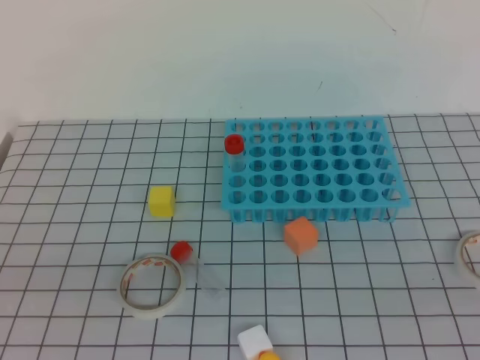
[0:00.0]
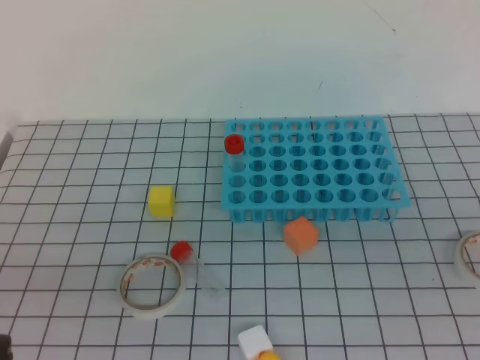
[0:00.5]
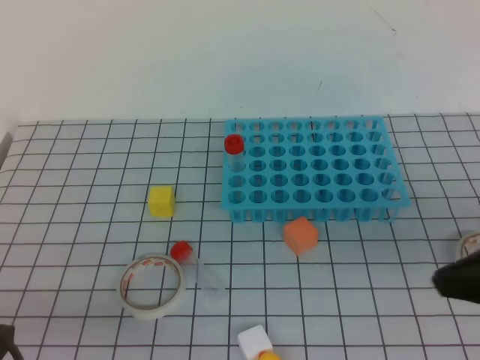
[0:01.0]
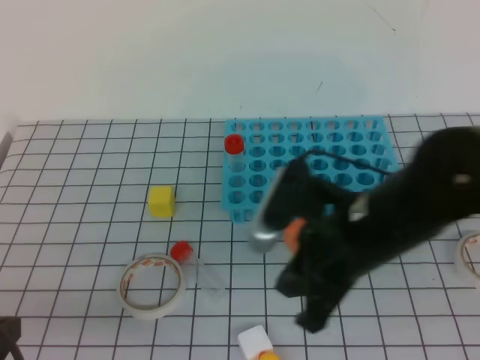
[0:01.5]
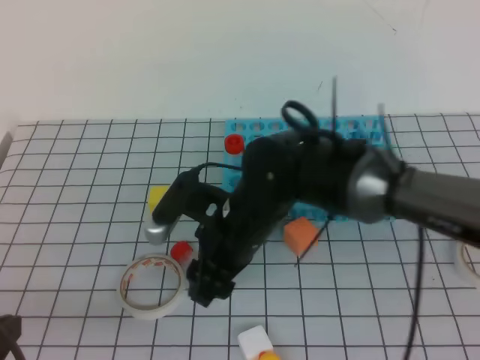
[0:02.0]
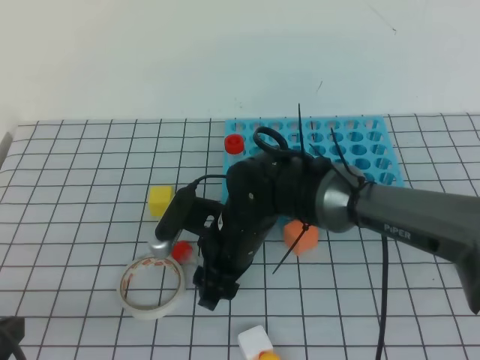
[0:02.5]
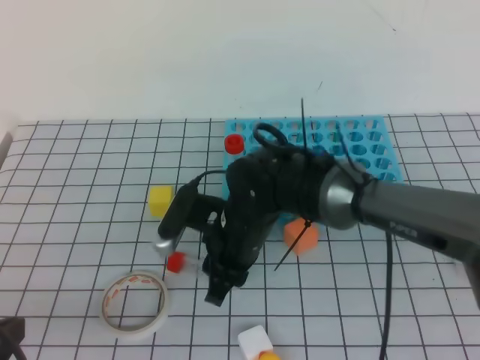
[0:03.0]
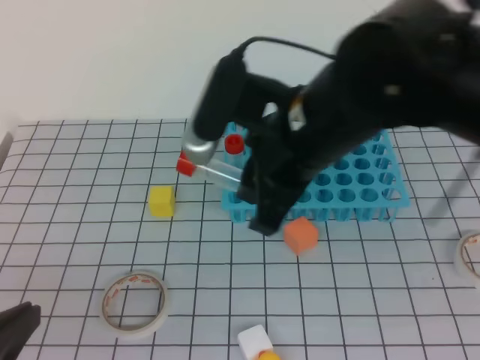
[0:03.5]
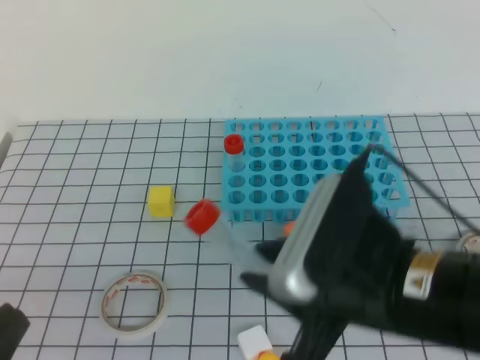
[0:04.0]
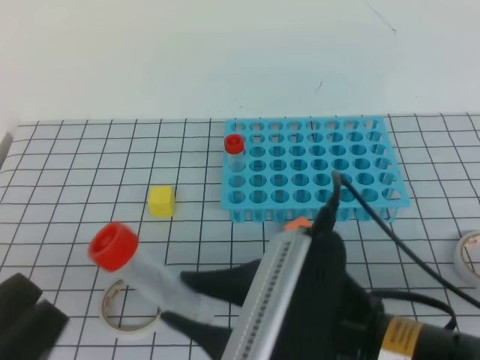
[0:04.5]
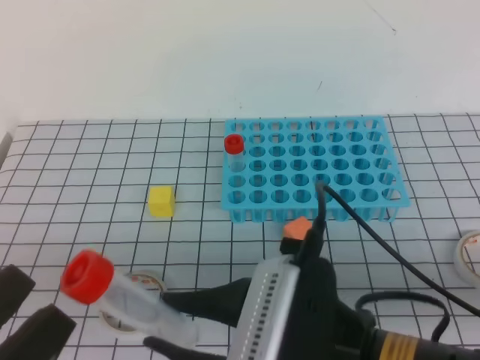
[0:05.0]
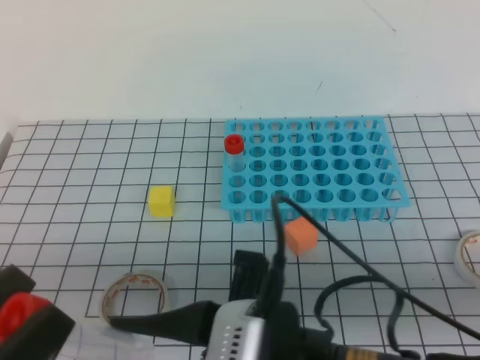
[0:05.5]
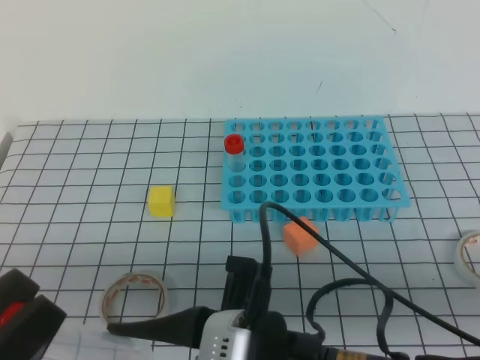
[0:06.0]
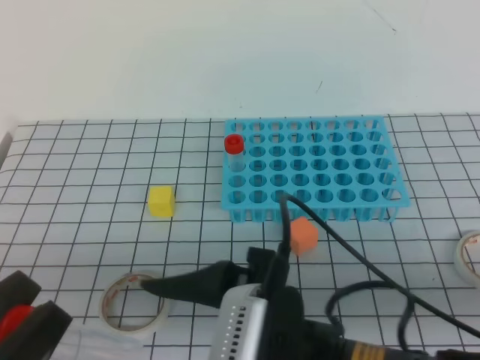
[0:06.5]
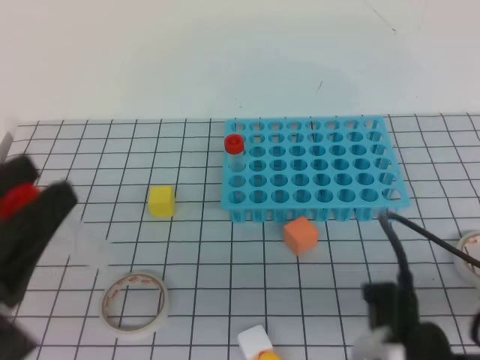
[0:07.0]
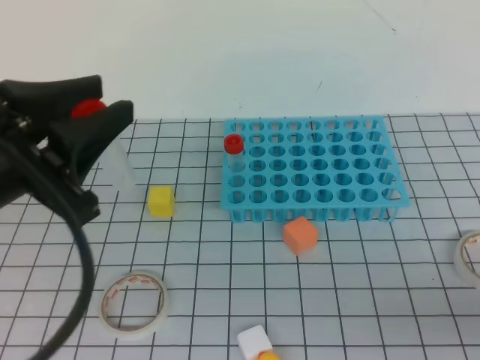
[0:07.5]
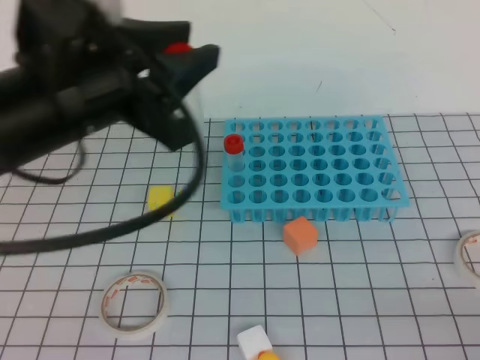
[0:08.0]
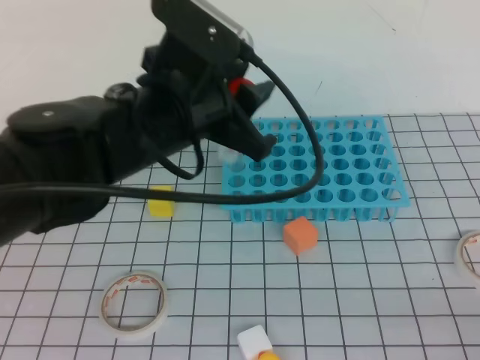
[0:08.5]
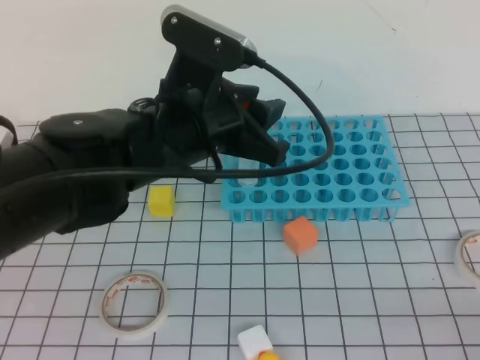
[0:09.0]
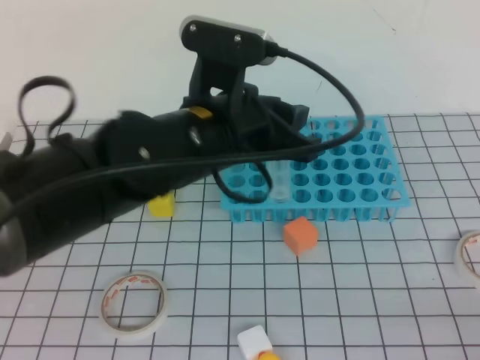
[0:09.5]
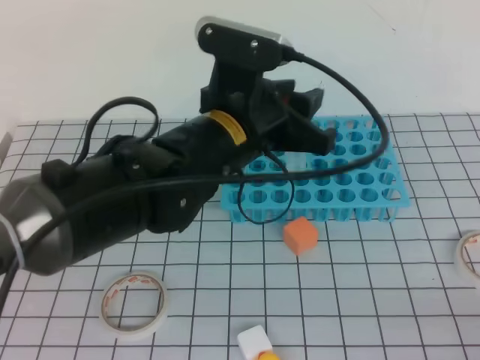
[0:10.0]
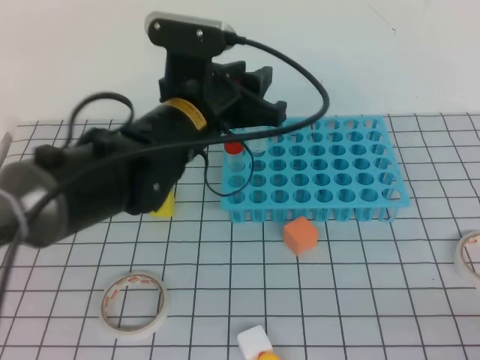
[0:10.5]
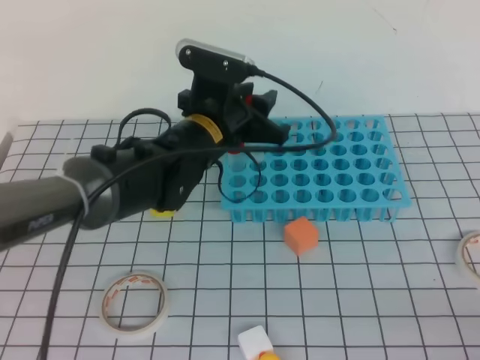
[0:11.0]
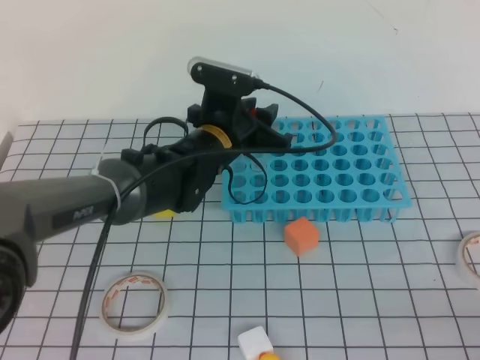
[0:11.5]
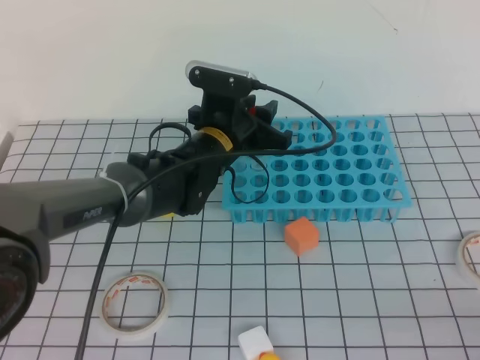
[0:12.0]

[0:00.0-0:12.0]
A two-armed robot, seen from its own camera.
0:00.0 to 0:02.0: The left gripper moves downward and forward, approximately 10 cm; the right gripper moves to the left and forward, approximately 40 cm, and opens its fingers.
0:02.0 to 0:04.0: The left gripper travels backward by roughly 5 cm; the right gripper moves backward, to the right and upward, about 20 cm.
0:04.0 to 0:06.0: The right gripper shifts roughly 10 cm backward and to the left. The left gripper opens up.
0:06.0 to 0:08.0: The right gripper goes roughly 25 cm to the right, and closes, while the left gripper goes about 20 cm forward.
0:08.0 to 0:10.0: The left gripper moves to the right, downward and forward, about 15 cm.
0:10.0 to 0:12.0: The left gripper shifts some 15 cm forward and downward.

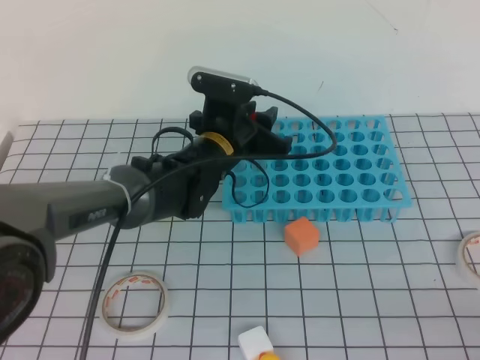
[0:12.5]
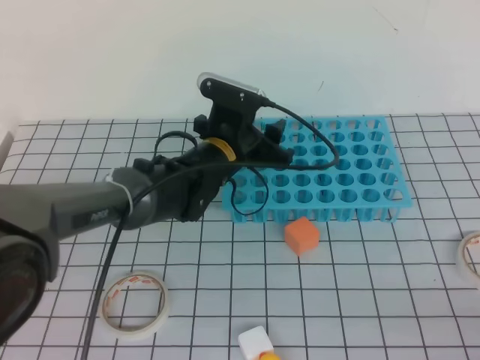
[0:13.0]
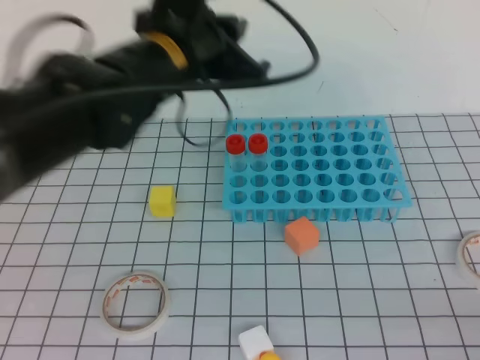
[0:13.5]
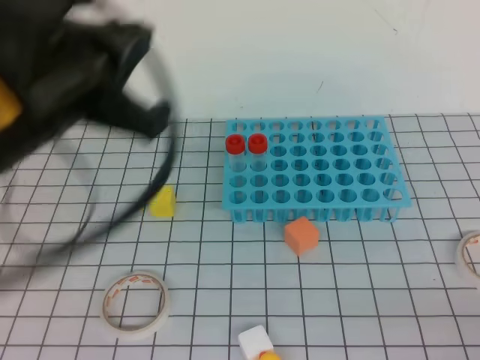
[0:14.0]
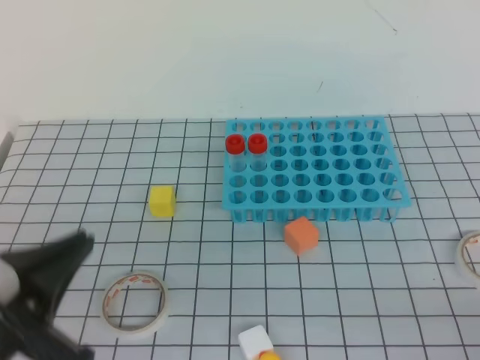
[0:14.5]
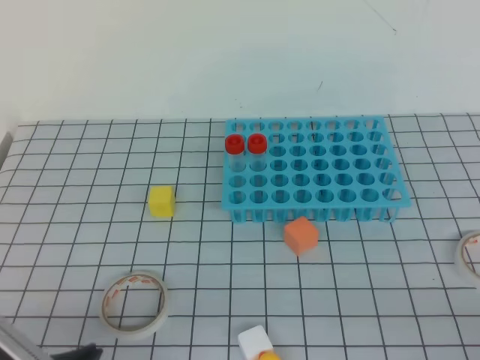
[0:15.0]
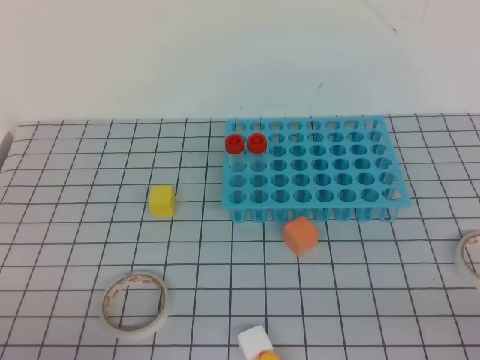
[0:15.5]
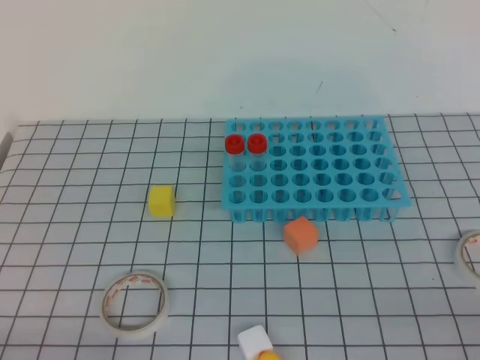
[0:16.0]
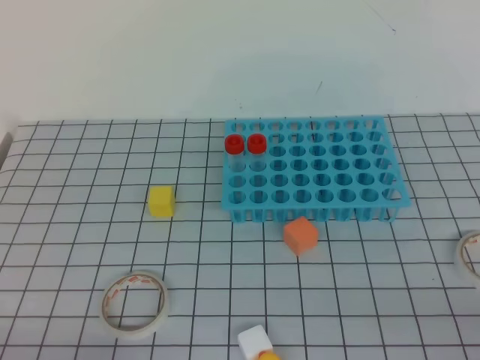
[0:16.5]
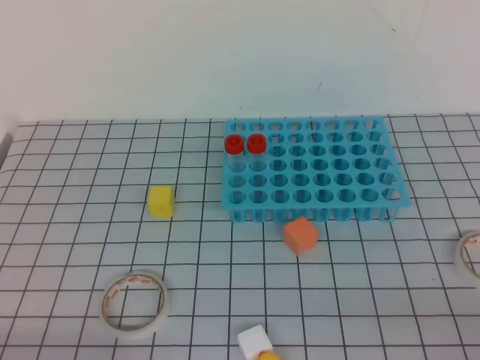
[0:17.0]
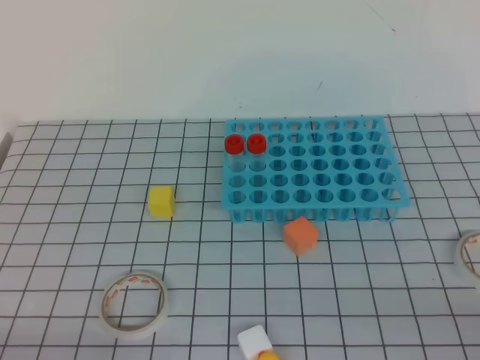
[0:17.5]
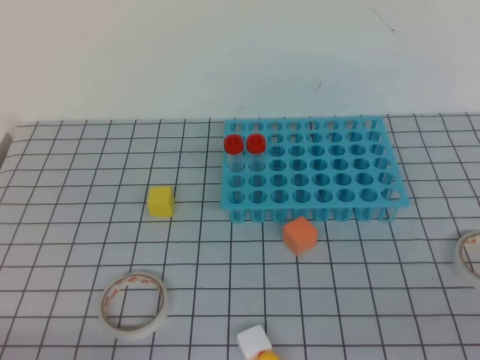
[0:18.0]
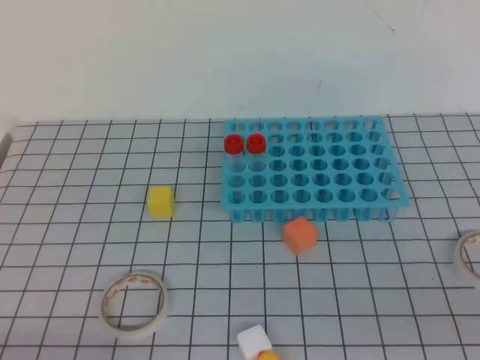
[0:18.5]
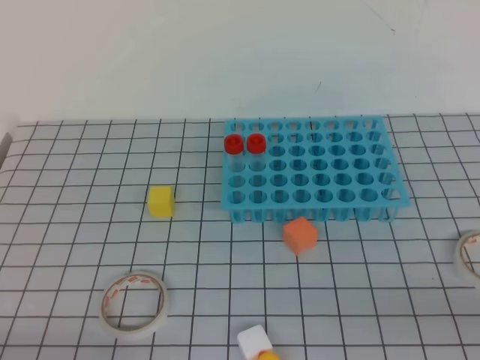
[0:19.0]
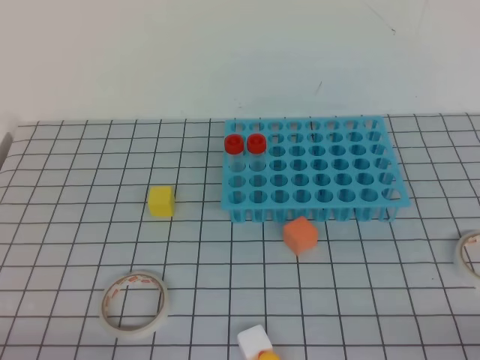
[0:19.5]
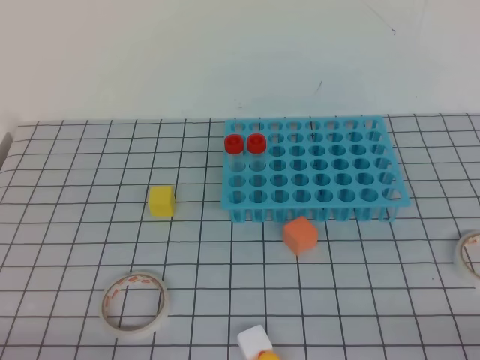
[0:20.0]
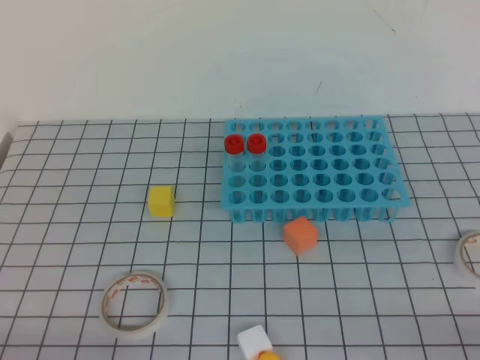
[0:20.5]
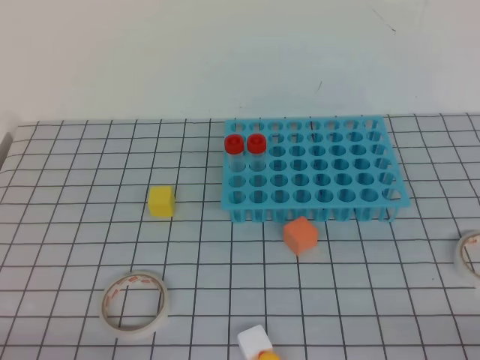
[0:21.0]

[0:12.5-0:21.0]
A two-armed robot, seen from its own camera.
0:12.5 to 0:14.5: The left gripper goes some 35 cm backward and to the left, and closes.
0:14.5 to 0:16.5: The left gripper shifts approximately 15 cm downward, backward and to the left.
